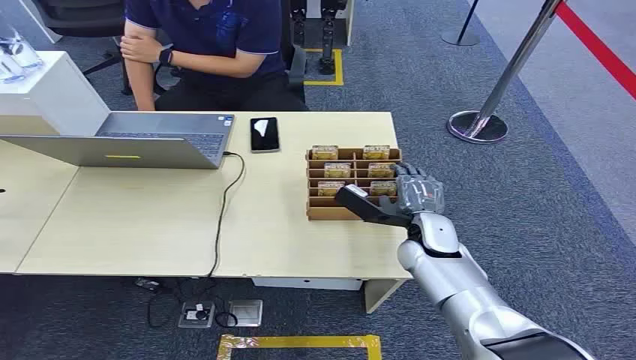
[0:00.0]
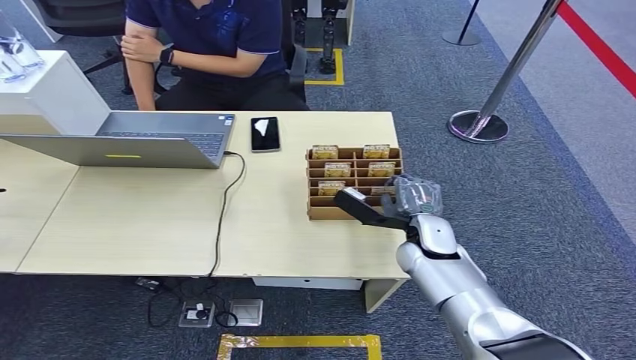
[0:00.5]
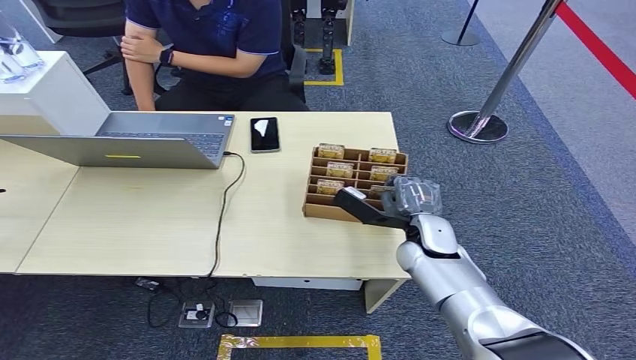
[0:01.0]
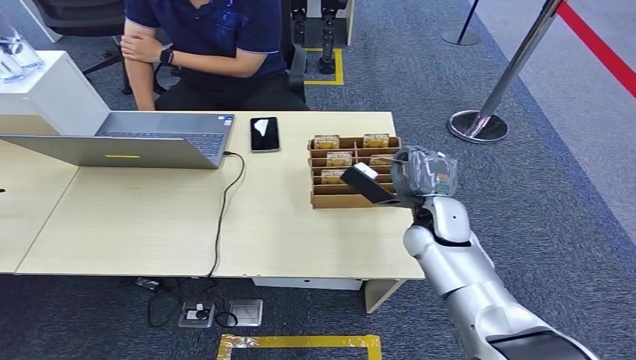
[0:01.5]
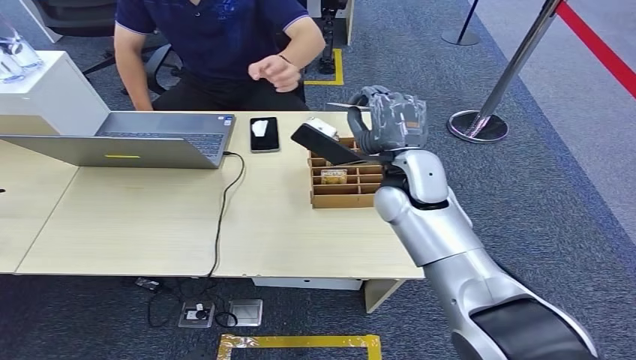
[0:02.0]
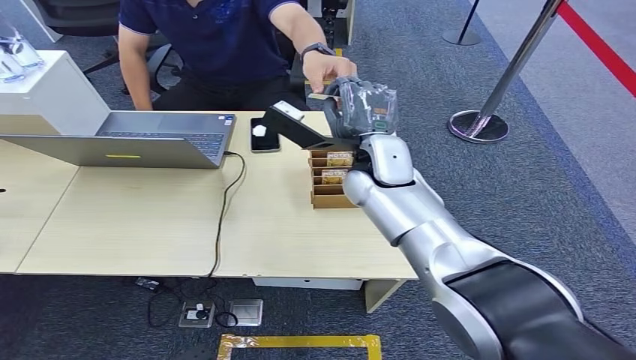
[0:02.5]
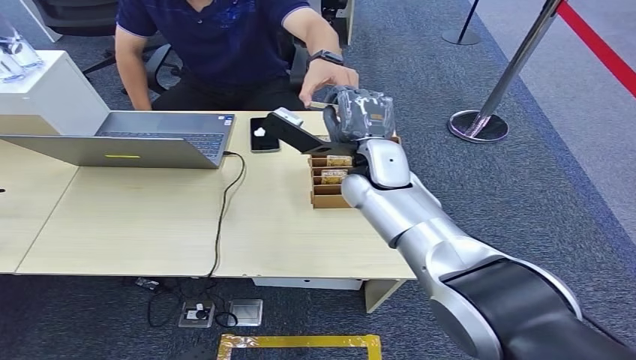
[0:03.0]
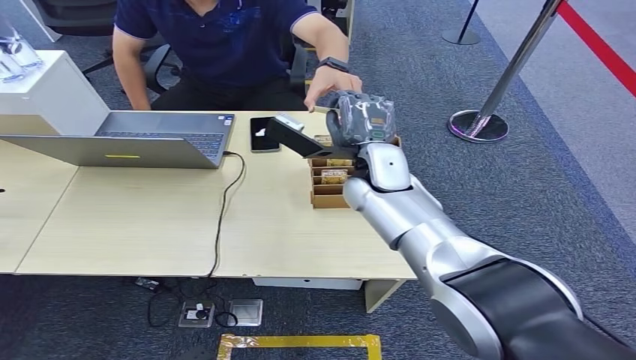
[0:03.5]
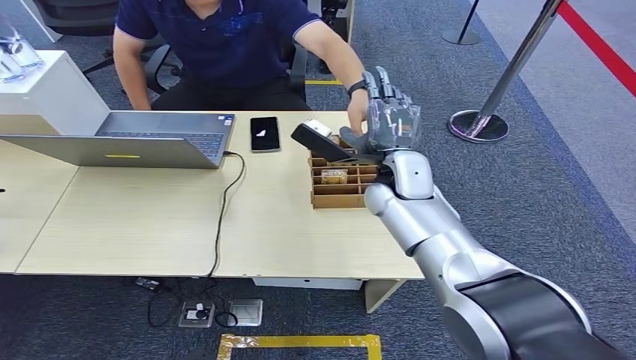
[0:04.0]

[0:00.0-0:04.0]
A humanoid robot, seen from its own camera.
Step, 0:00.0 to 0:01.0: Pick up the key card from the card box.
Step, 0:01.5 to 0:04.0: Hand the key card to the target.
0:02.0 to 0:04.0: There are only small adjustments of the hands.

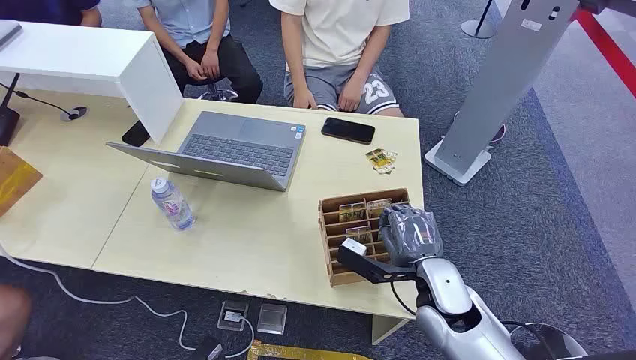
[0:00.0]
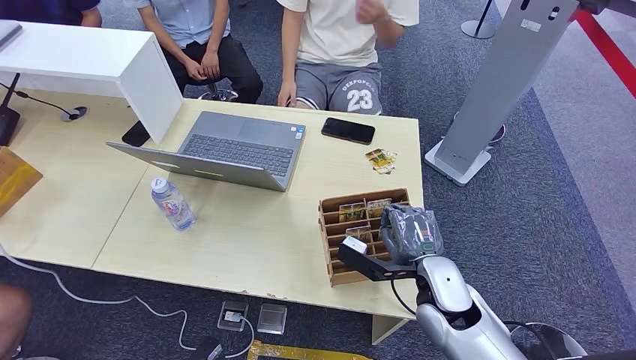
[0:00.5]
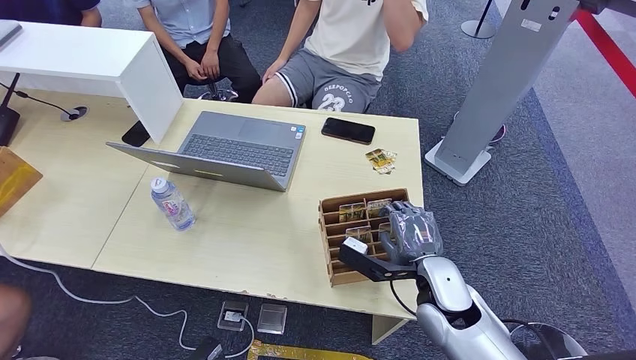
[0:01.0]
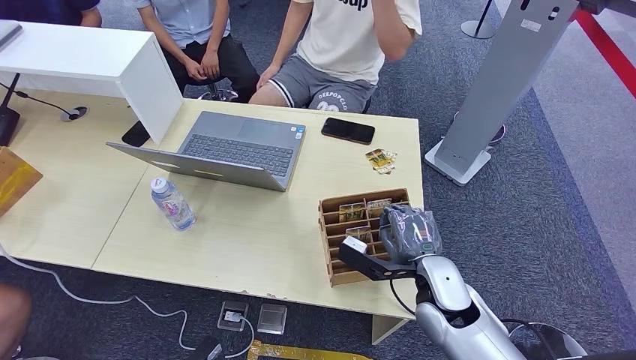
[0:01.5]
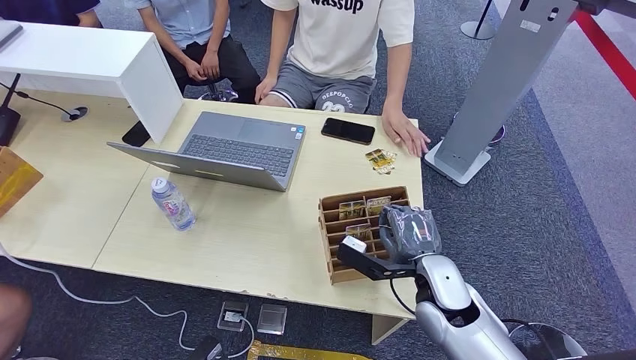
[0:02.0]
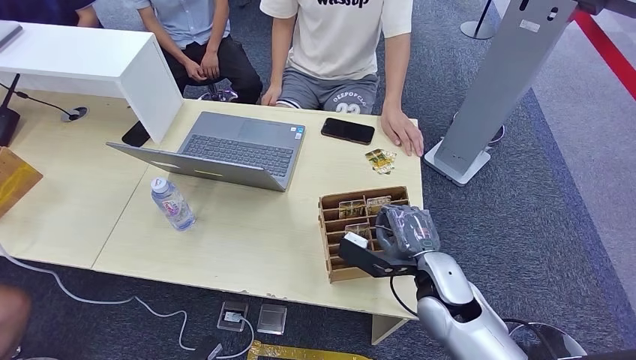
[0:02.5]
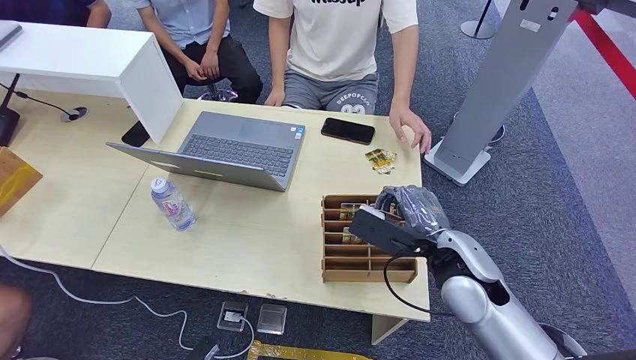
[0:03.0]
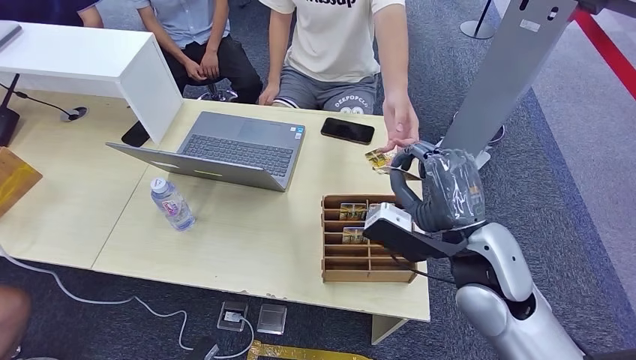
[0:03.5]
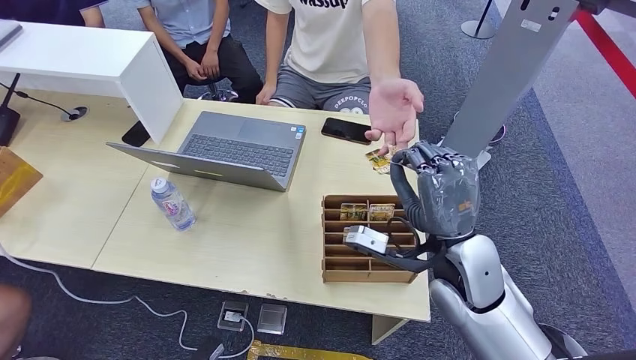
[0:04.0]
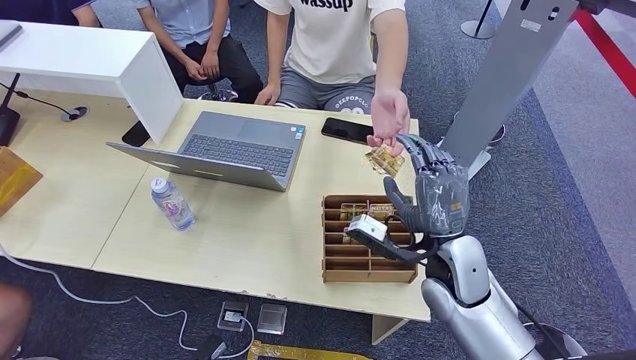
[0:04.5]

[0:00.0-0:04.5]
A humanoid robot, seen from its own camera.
Step, 0:00.0 to 0:03.0: Pick up the key card from the card box.
Step, 0:03.5 to 0:04.5: Hand the key card to the target.
0:02.0 to 0:04.5: The right hand moves upward, roughly 5 cm.
